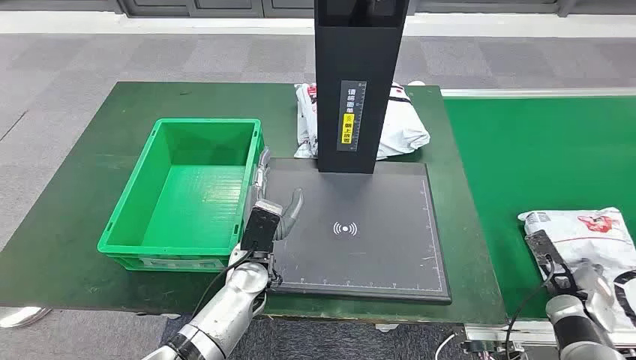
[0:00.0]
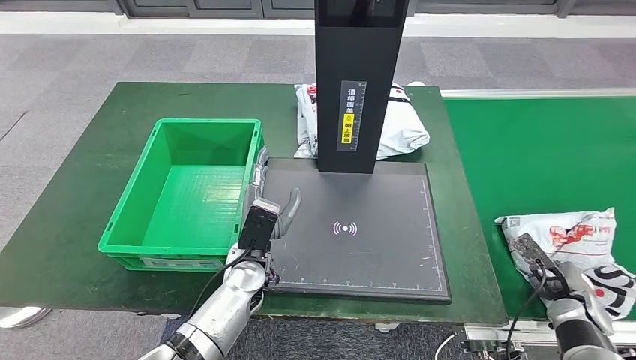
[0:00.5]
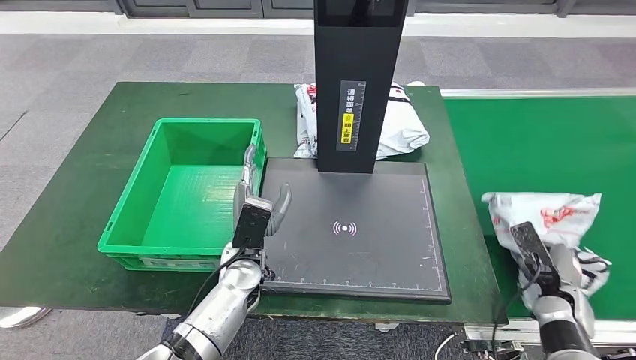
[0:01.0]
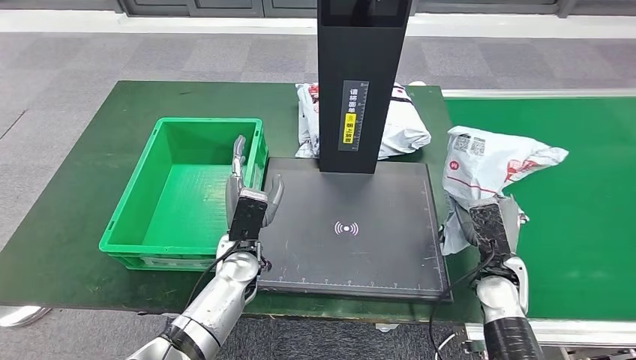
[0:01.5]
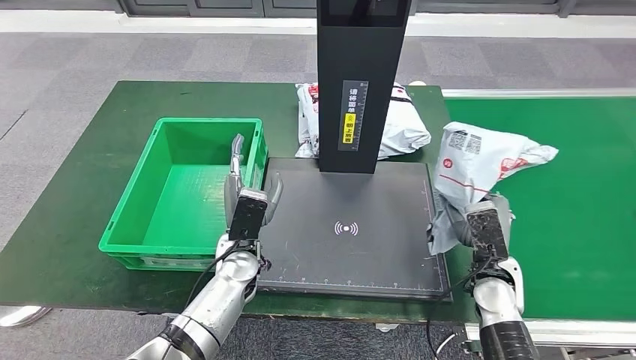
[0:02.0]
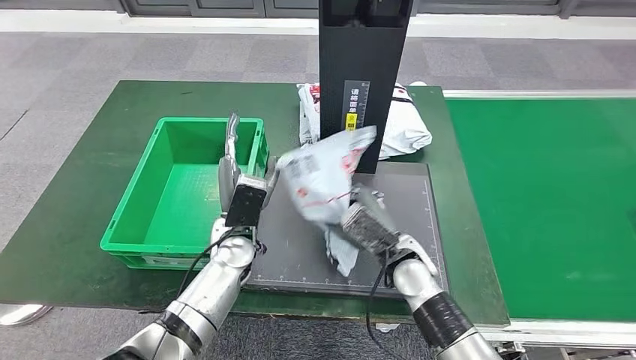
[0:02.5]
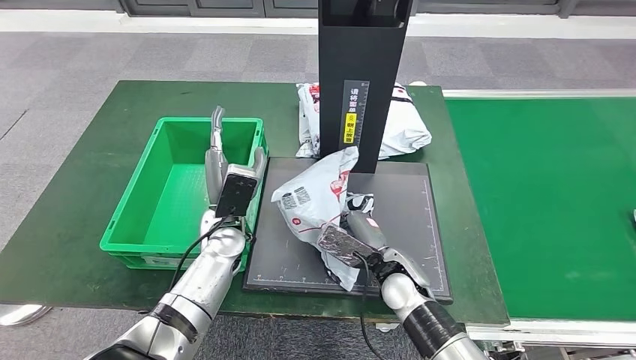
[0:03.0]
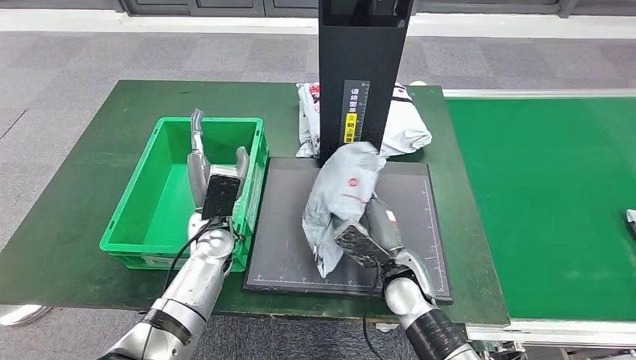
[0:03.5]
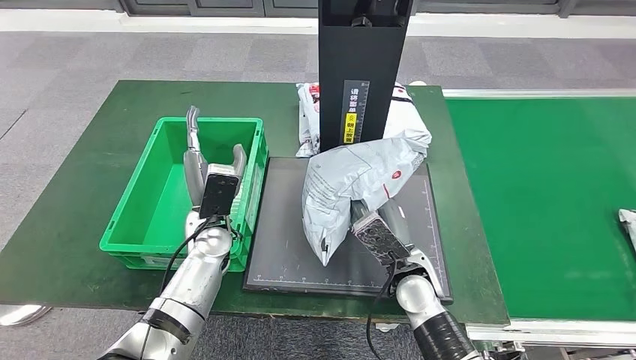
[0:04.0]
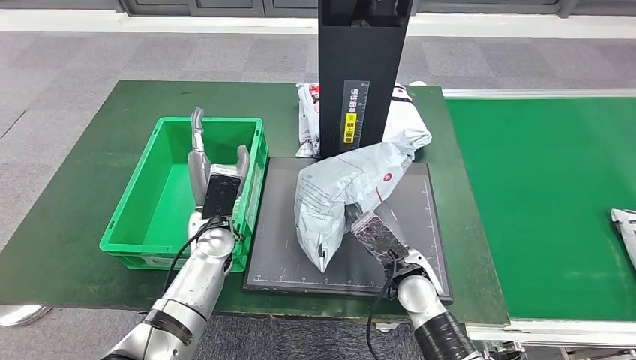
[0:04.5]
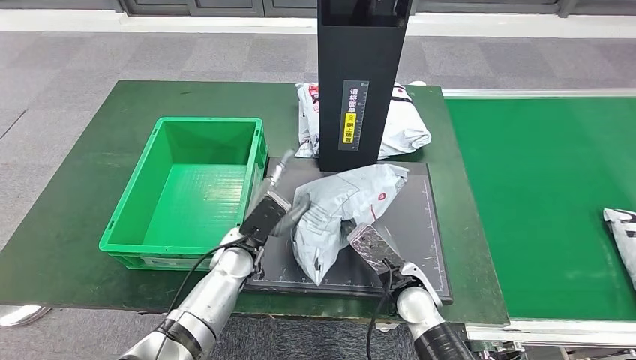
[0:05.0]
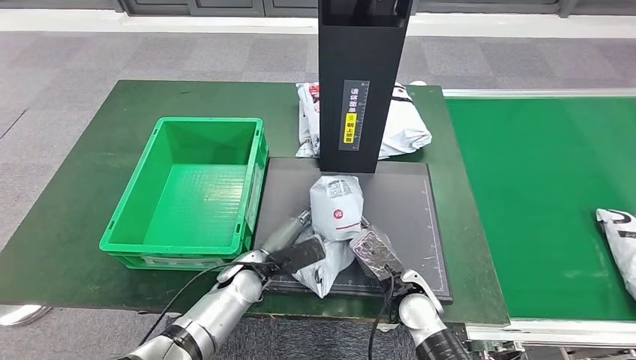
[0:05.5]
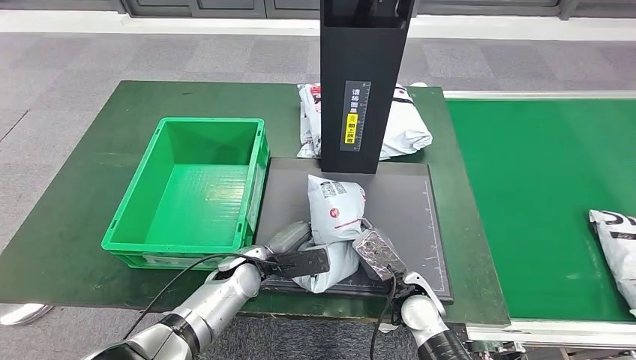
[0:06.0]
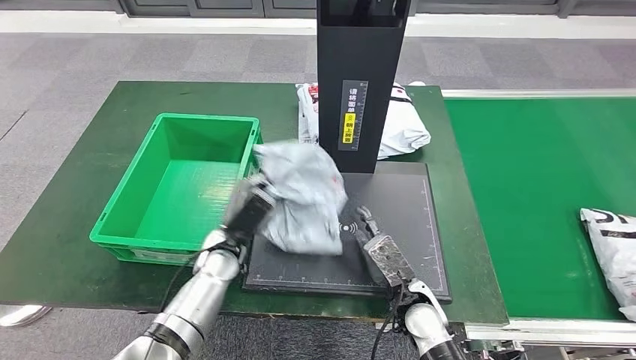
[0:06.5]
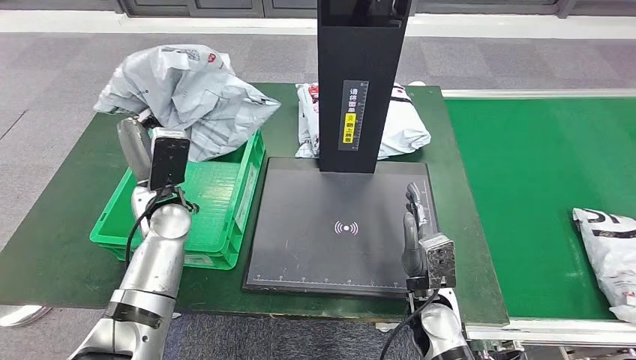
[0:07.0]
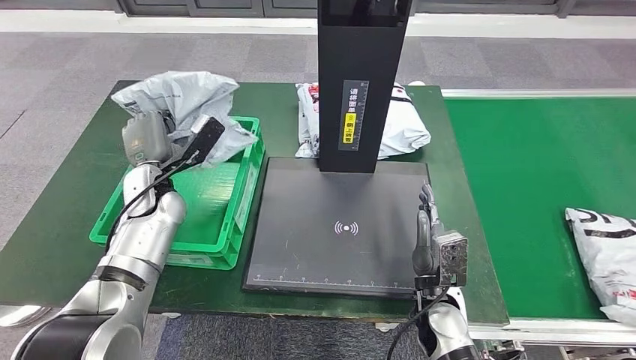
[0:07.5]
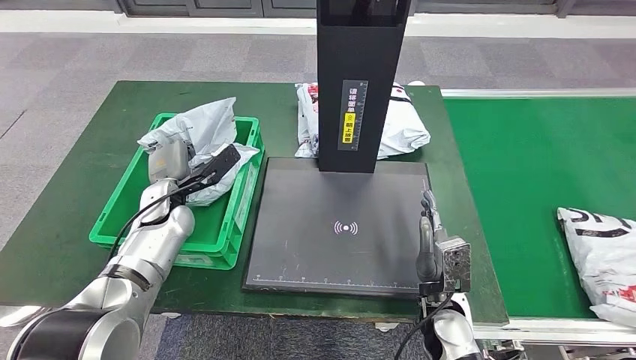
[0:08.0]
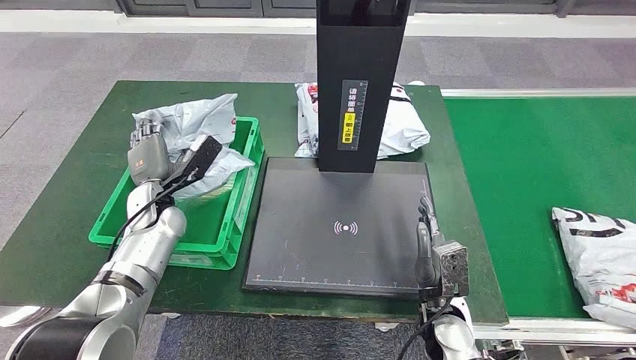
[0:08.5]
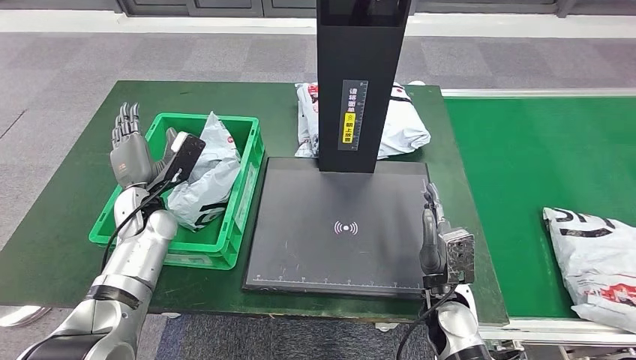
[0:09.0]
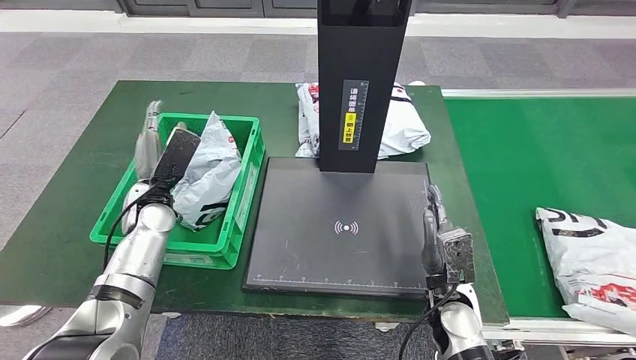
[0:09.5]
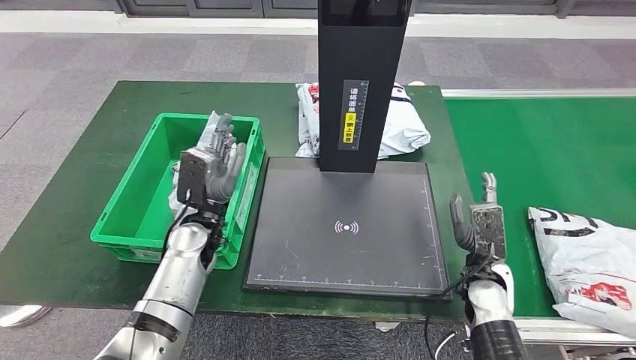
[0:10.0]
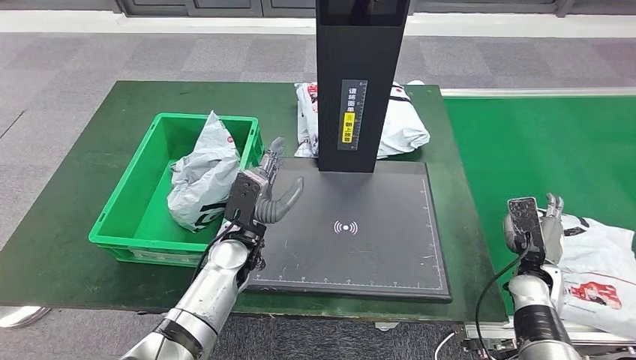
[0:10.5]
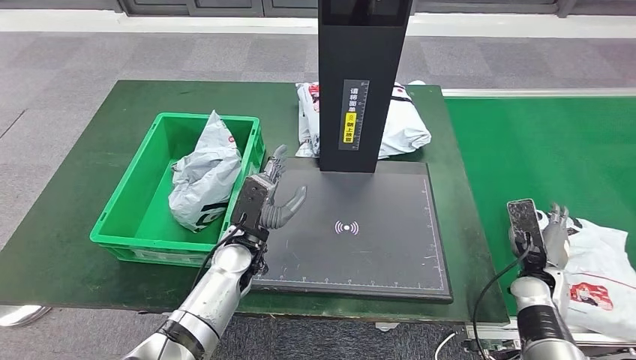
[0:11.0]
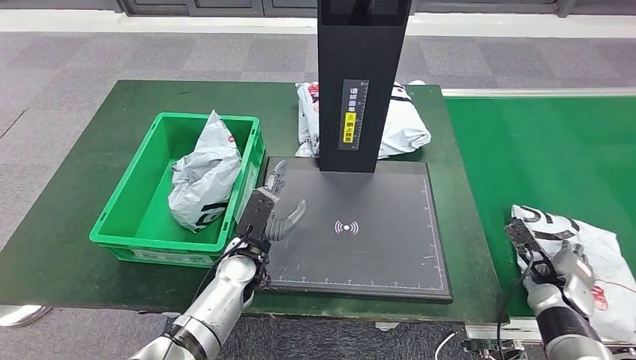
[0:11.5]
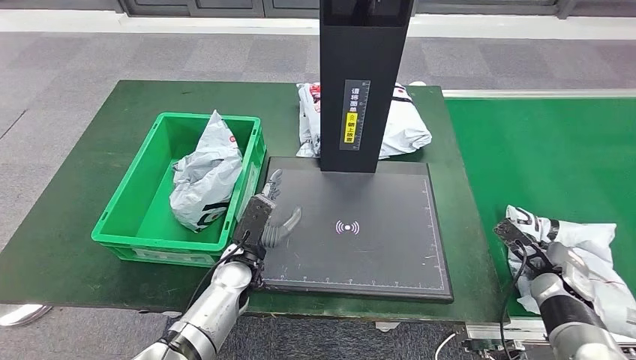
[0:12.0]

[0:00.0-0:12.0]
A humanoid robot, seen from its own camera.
Step, 0:00.0 to 0:01.5: Take the parcel off the conveyor belt.
Step, 0:02.5 to 0:03.5: Place the parcel onto the inbound machine.
Step, 0:04.5 to 0:07.0: Pick up the parcel from the inbound machine.
Step, 0:07.5 to 0:10.5: Put the parcel inside the courier box.
0:10.0 to 0:12.0: The left hand shifts approximately 10 cm downward, to the right and backward; the right hand goes some 15 cm to the right.

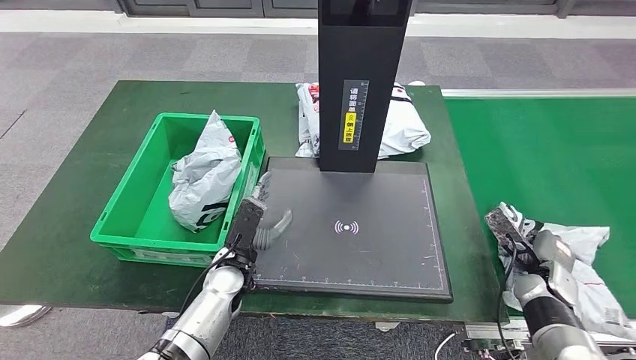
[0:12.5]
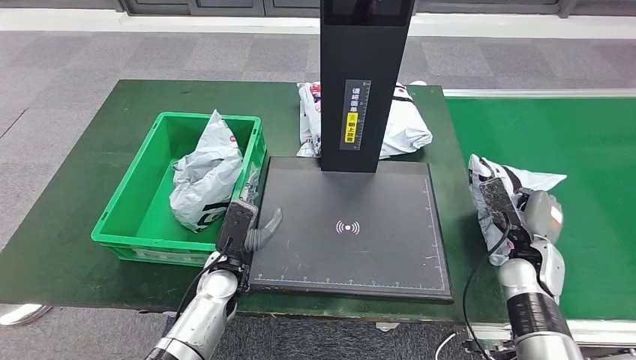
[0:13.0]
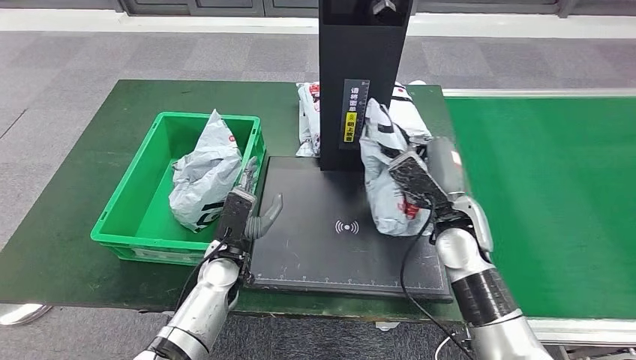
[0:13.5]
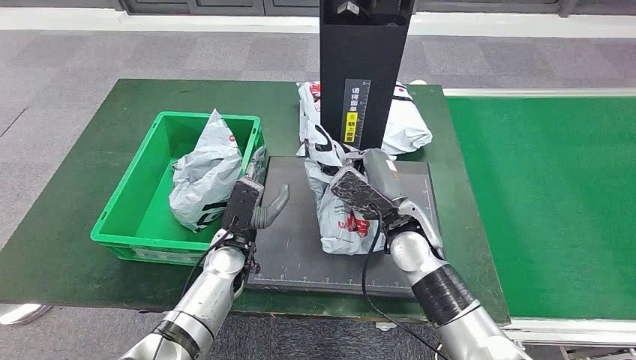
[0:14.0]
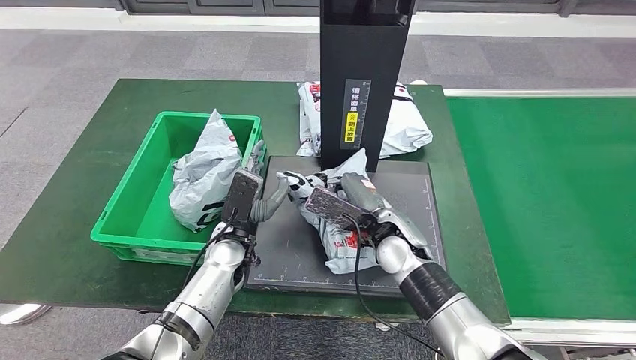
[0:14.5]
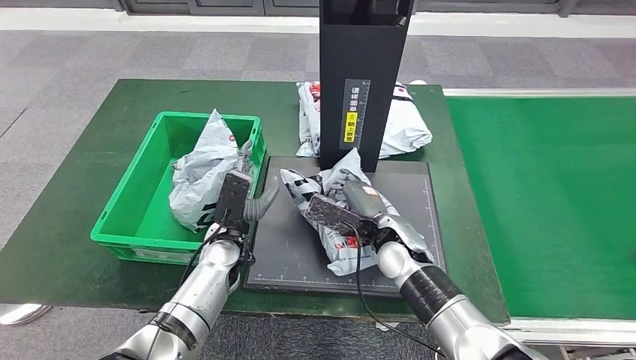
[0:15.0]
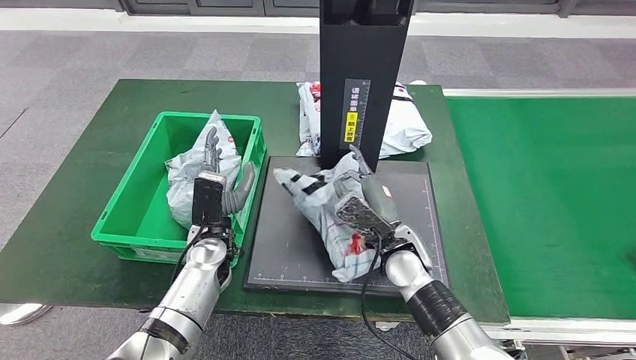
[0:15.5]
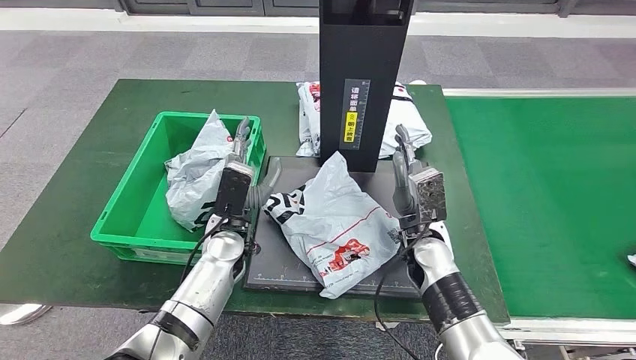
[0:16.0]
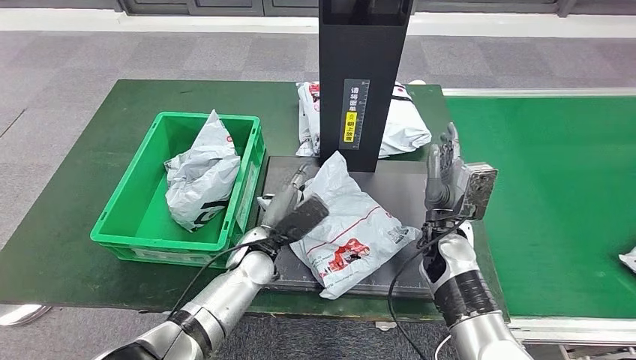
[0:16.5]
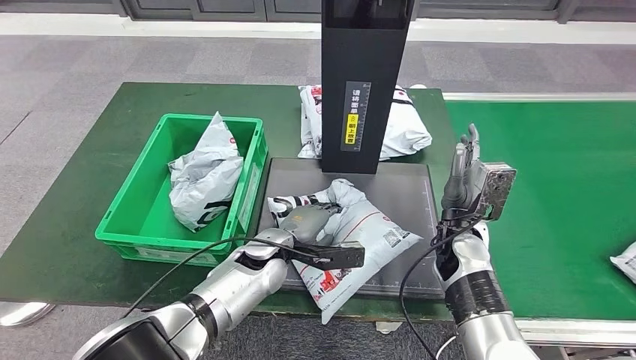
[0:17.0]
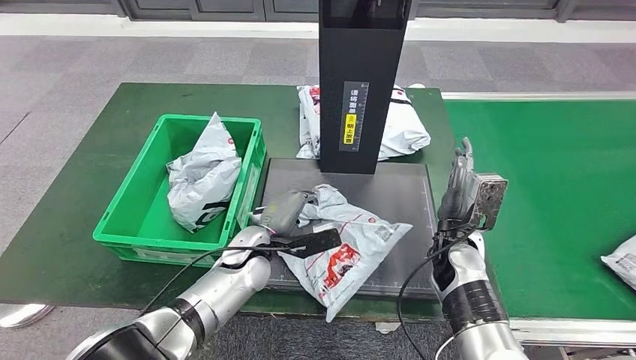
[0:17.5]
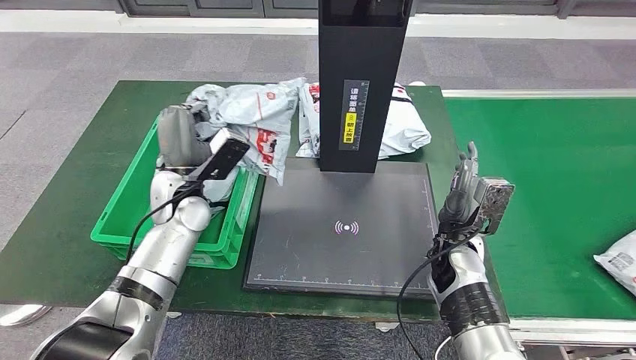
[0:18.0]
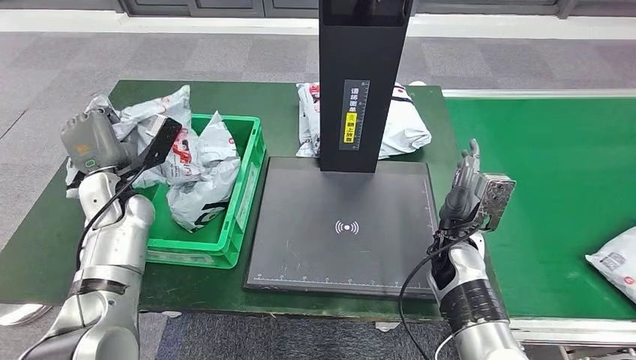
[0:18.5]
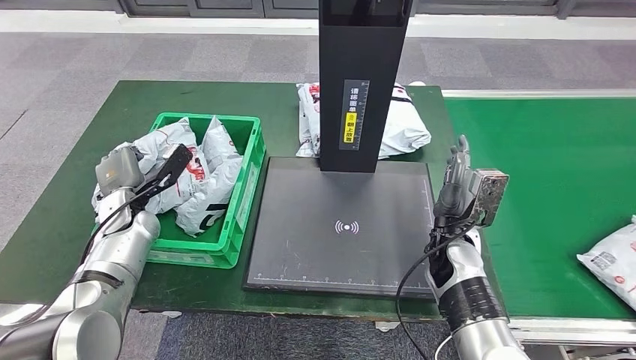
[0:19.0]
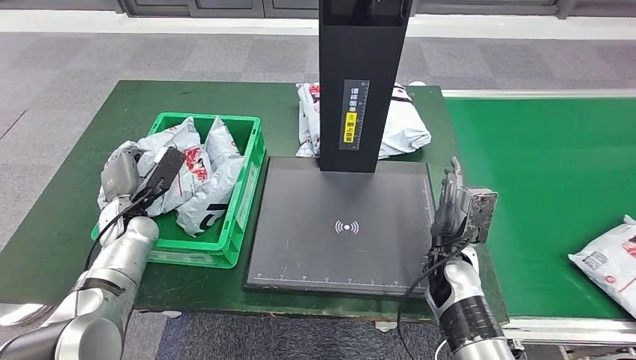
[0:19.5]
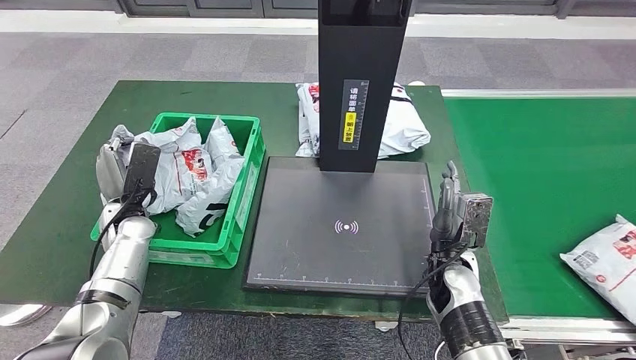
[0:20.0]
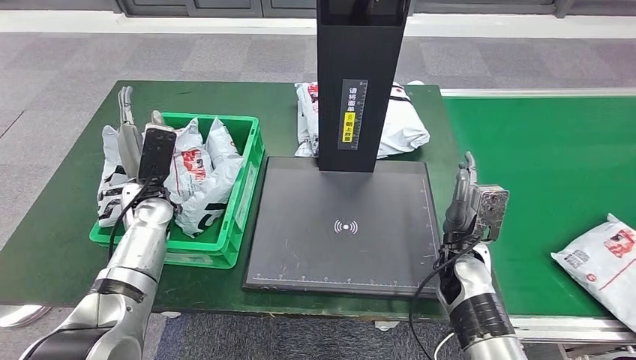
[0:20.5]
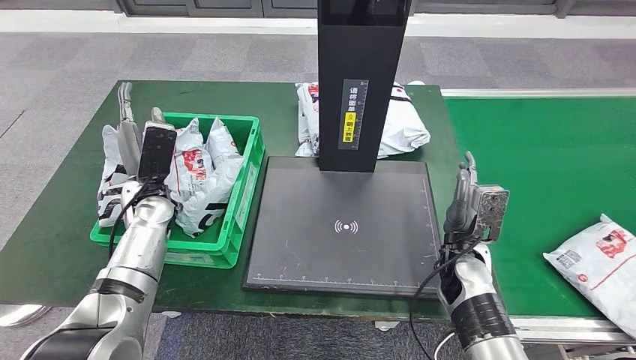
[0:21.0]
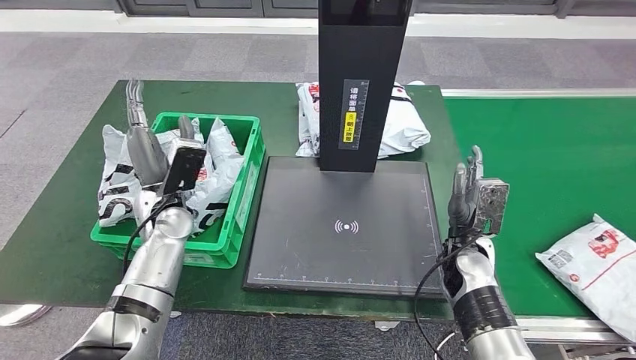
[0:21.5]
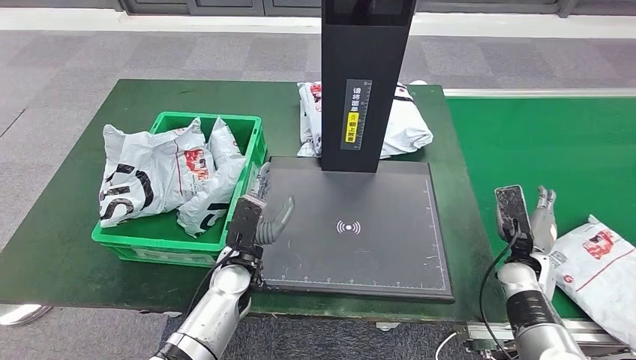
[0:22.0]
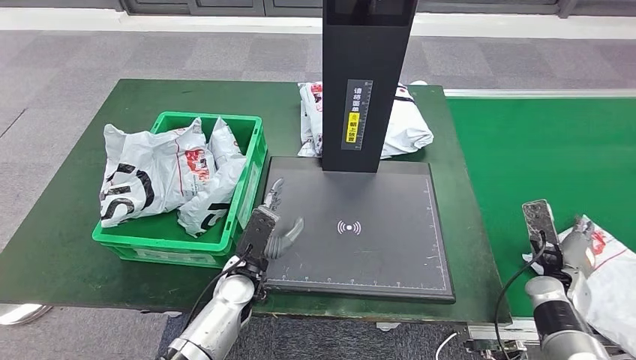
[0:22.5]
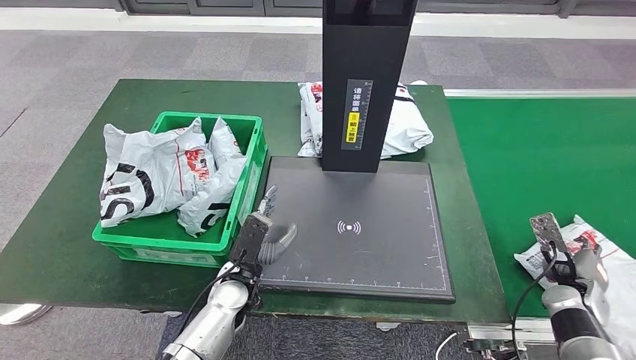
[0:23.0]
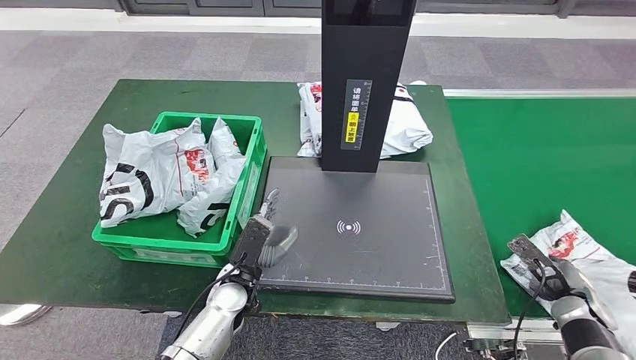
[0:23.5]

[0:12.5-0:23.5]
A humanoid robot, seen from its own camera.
Step, 0:14.0 to 0:16.0: Place the parcel onto the inbound machine.
Step, 0:16.5 to 0:17.5: Pick up the parcel from the inbound machine.
Step, 0:18.0 to 0:20.0: Place the parcel into the delivery box.
0:20.0 to 0:21.5: The left hand shifts roughly 10 cm to the right.
